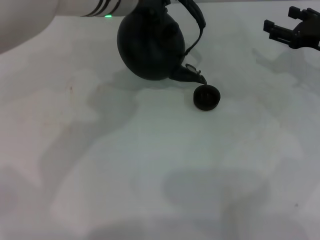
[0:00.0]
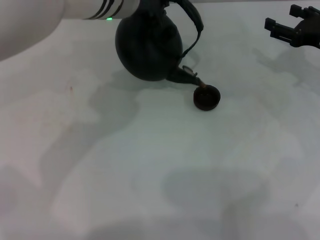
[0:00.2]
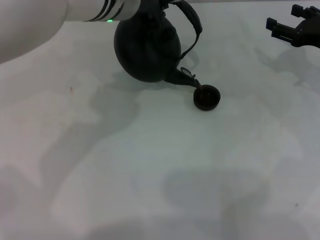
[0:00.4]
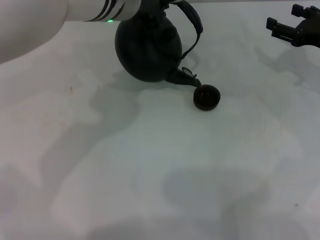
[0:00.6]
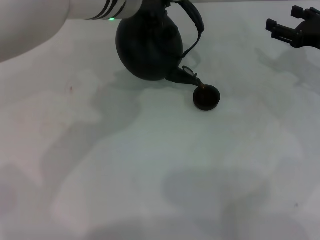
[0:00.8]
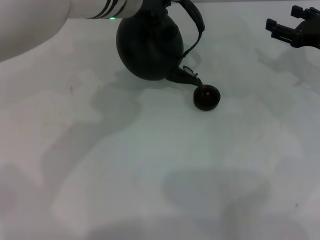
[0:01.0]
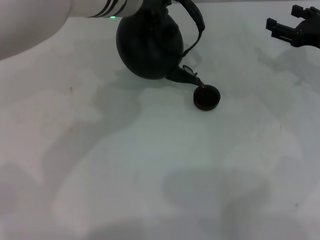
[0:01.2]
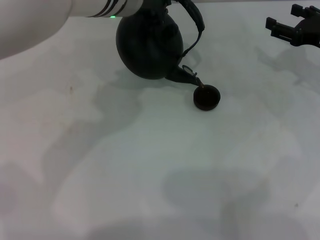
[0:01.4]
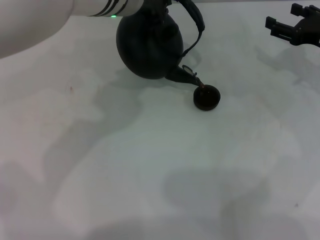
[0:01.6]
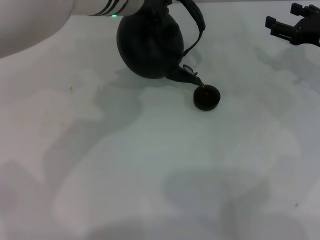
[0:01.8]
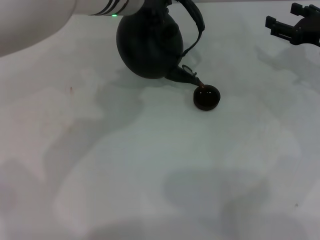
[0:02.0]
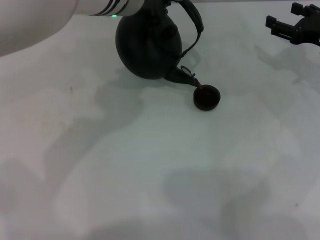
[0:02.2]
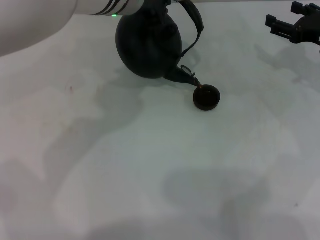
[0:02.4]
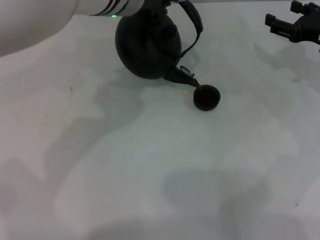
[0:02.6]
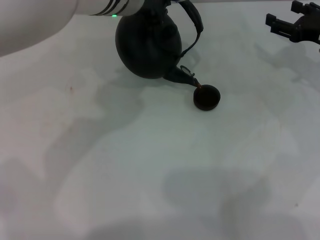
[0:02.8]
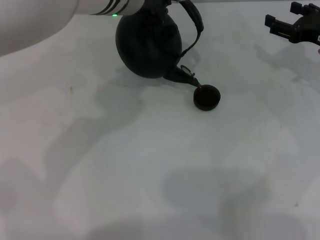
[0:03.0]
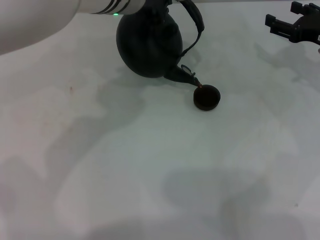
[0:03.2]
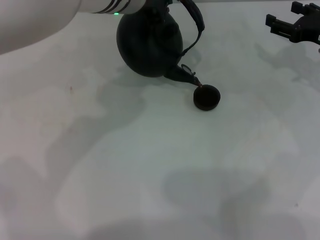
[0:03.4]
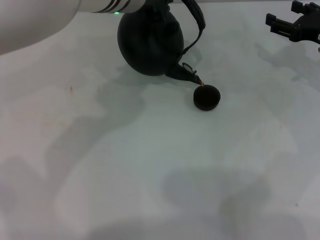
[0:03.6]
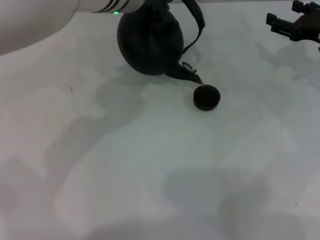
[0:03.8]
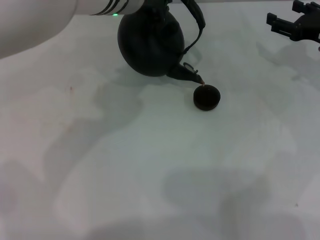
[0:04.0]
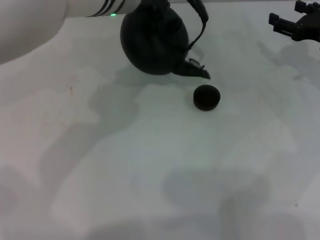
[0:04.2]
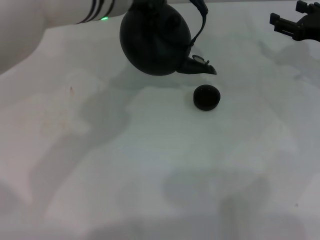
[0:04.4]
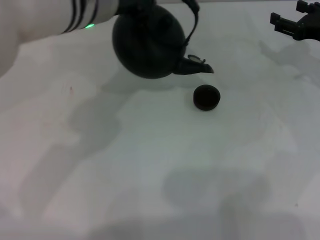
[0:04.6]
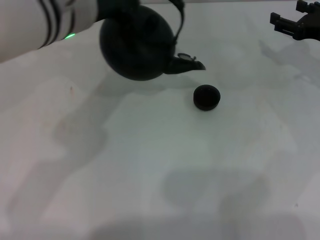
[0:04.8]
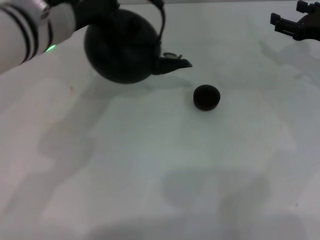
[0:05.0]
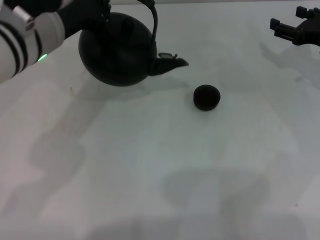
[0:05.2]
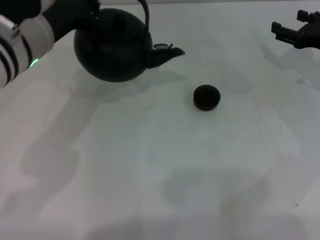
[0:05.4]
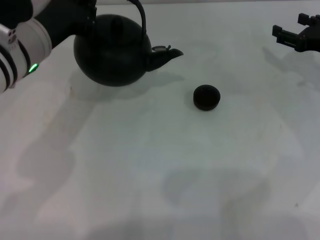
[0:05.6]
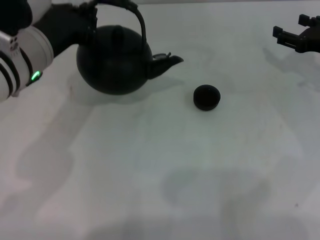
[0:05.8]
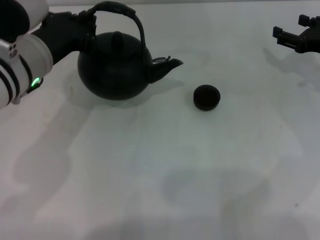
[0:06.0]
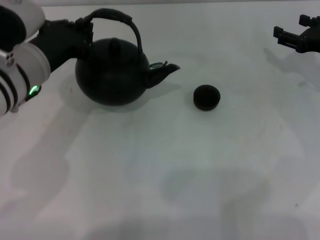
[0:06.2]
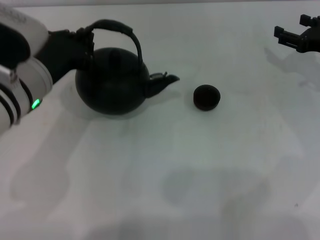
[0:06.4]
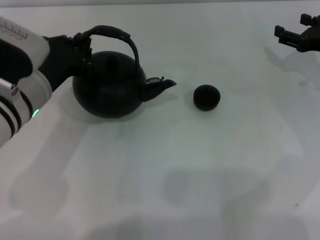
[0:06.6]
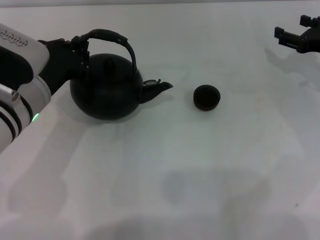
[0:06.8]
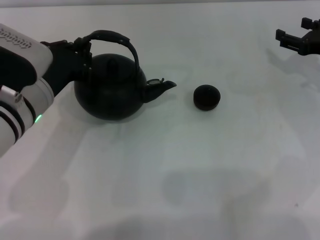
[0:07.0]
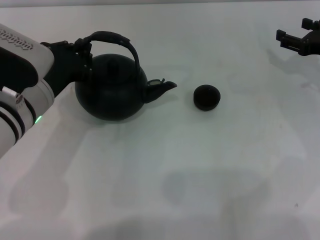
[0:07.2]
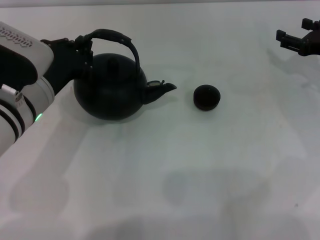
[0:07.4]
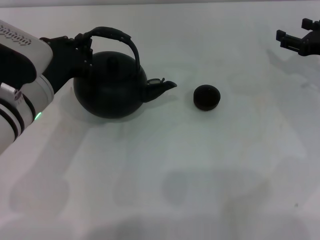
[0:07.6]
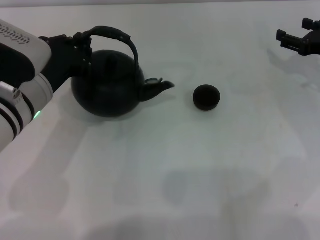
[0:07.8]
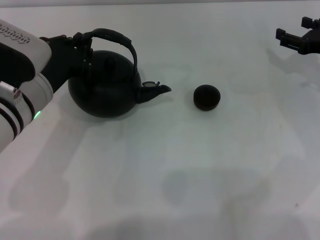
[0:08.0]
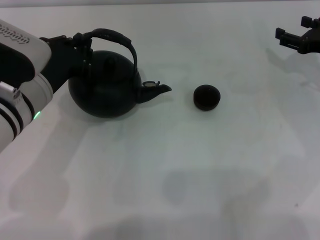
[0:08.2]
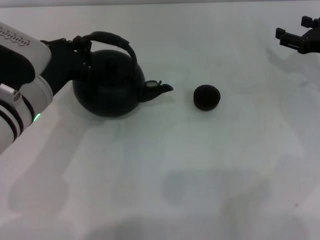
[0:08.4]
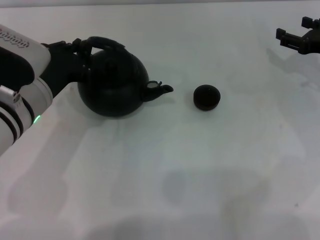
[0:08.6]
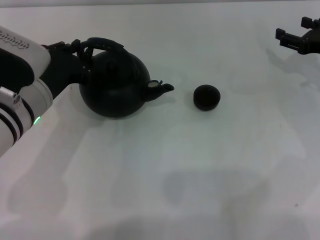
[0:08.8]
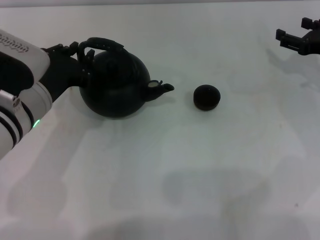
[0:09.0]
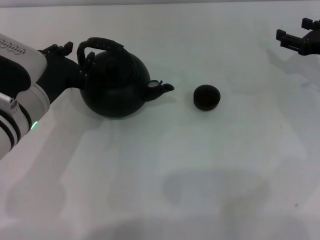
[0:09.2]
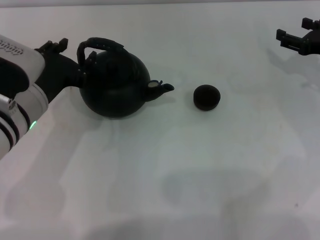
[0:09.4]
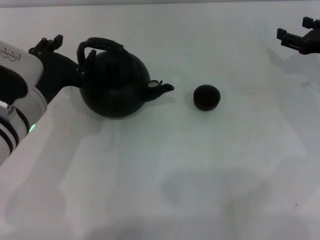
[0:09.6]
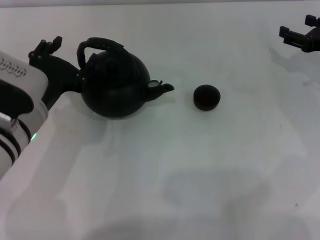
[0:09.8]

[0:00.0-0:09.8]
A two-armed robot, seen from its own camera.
Task of the whole recording: Grasp the handle of the teapot with one hand and pour tea into the teacup.
Step, 0:00.0 to 0:04.4: Pour tea into the teacup with the left gripper.
0:00.0 to 0:01.4: Both grippers stay about where they are.
0:01.4 to 0:02.8: The two grippers keep their place.
0:02.8 to 0:04.2: There are only small adjustments of the grippers.
0:04.2 to 0:05.6: The left gripper shifts some 10 cm to the left and backward.
0:05.6 to 0:07.0: The left gripper is displaced downward by about 5 cm.
0:07.0 to 0:08.4: Both grippers stay about where they are.
0:08.4 to 0:09.8: The left gripper opens its fingers.

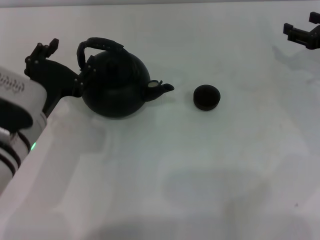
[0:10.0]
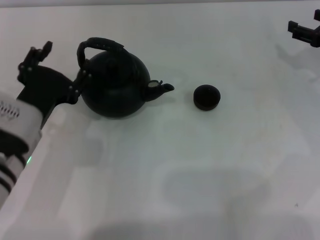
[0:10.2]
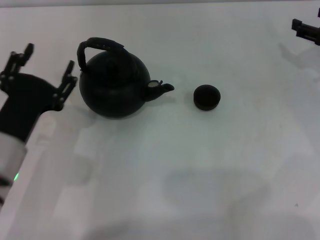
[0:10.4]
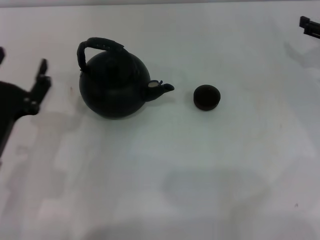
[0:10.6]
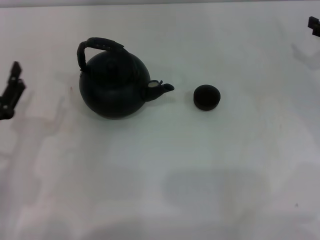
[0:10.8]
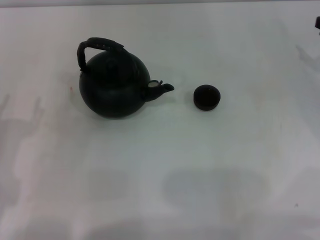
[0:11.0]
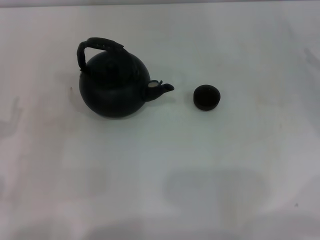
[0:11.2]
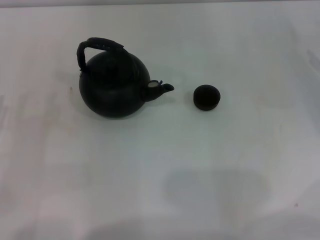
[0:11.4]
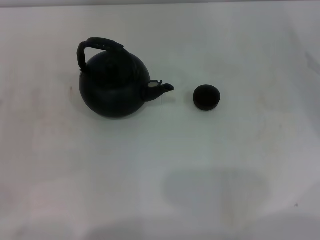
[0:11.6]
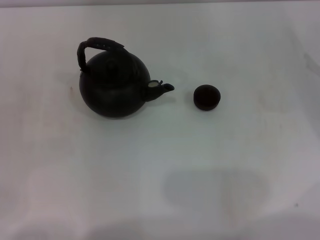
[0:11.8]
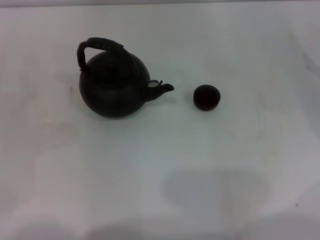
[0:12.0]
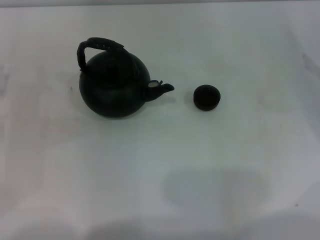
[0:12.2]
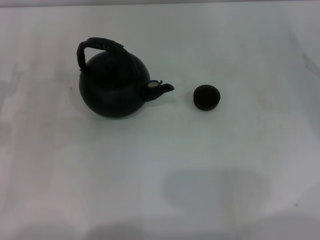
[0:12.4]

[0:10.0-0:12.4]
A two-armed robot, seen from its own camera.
Task of the whole recording: Grasp the handle of the teapot with one hand and pour tea into the teacup.
0:10.0 to 0:11.2: The left gripper goes some 15 cm to the left and backward. Meanwhile the right gripper shifts by roughly 5 cm.

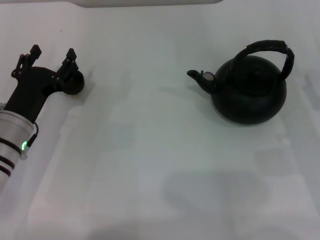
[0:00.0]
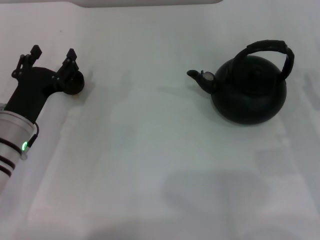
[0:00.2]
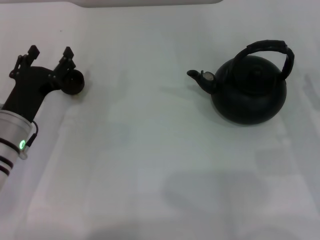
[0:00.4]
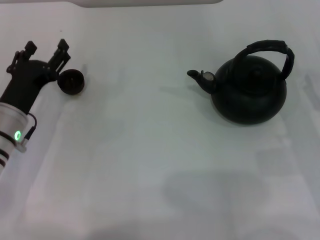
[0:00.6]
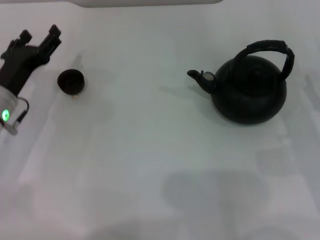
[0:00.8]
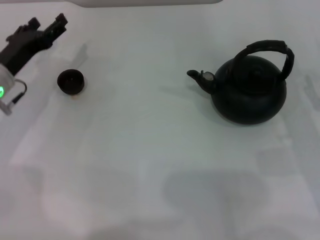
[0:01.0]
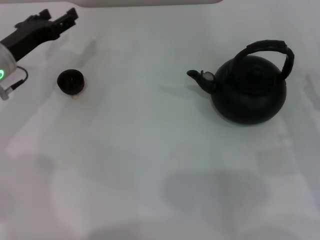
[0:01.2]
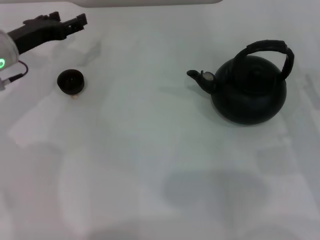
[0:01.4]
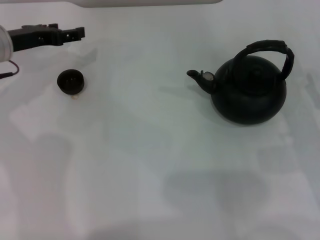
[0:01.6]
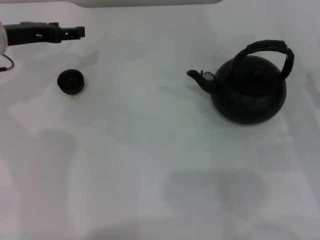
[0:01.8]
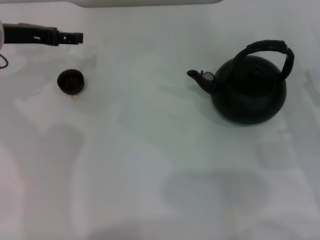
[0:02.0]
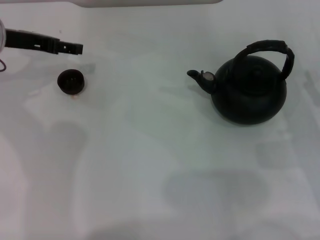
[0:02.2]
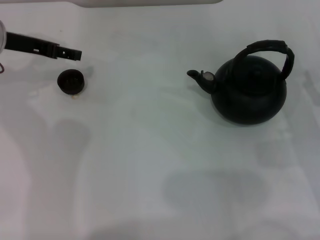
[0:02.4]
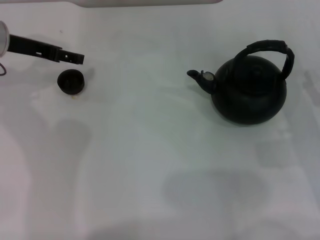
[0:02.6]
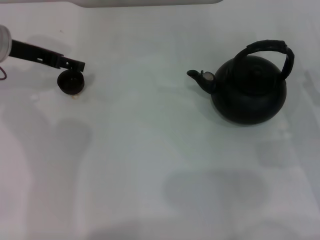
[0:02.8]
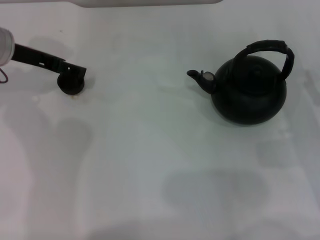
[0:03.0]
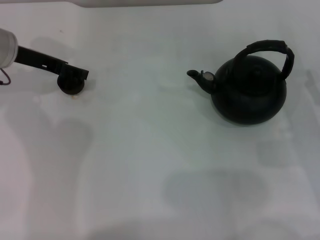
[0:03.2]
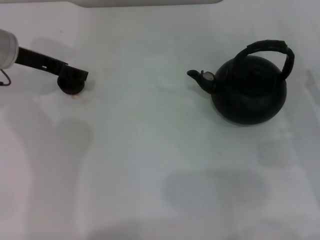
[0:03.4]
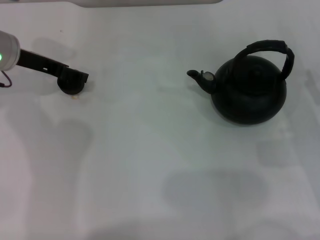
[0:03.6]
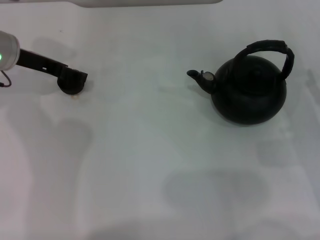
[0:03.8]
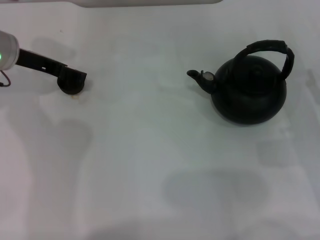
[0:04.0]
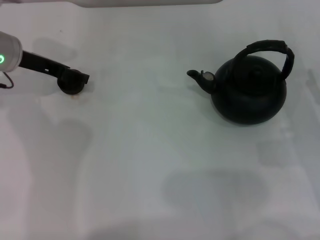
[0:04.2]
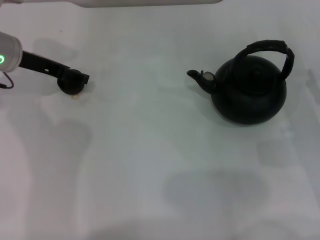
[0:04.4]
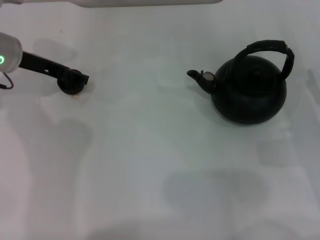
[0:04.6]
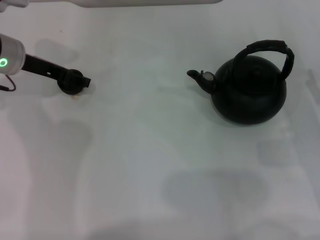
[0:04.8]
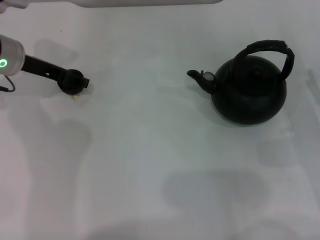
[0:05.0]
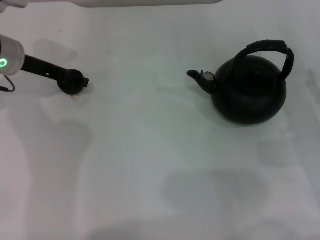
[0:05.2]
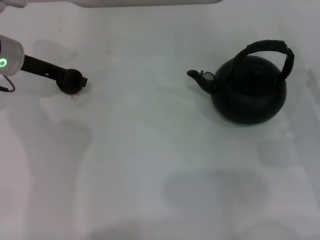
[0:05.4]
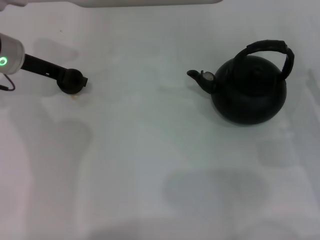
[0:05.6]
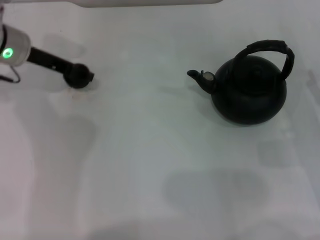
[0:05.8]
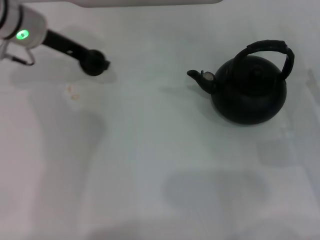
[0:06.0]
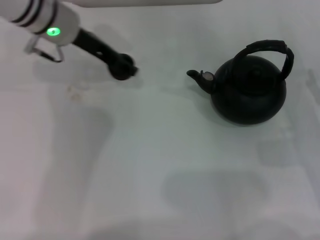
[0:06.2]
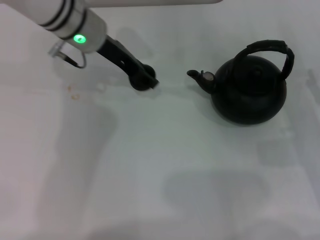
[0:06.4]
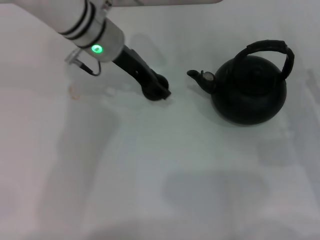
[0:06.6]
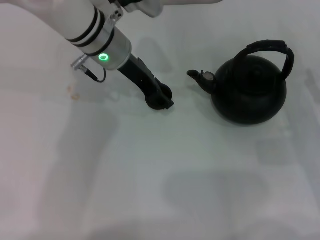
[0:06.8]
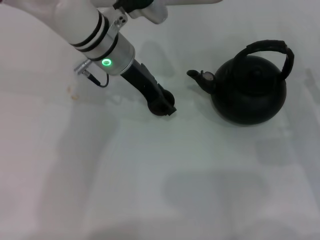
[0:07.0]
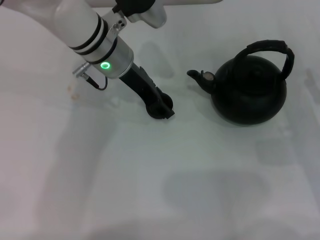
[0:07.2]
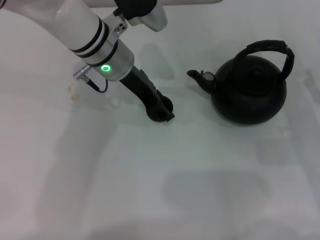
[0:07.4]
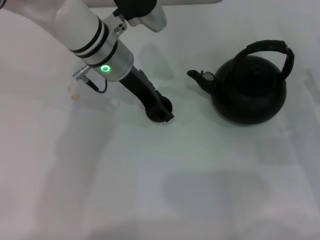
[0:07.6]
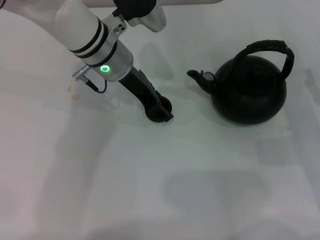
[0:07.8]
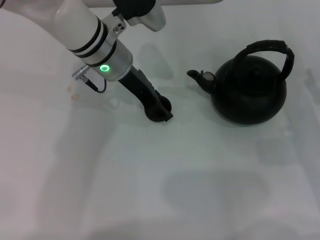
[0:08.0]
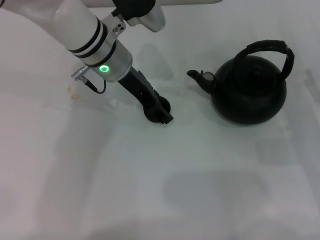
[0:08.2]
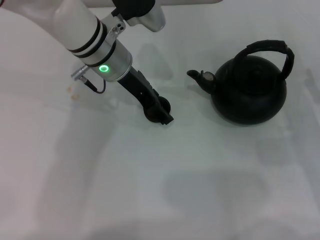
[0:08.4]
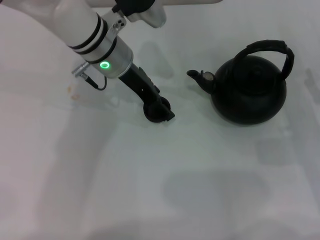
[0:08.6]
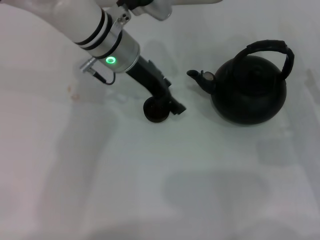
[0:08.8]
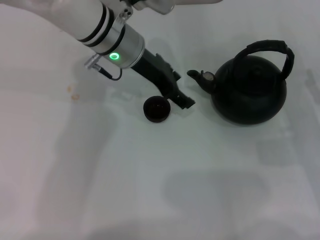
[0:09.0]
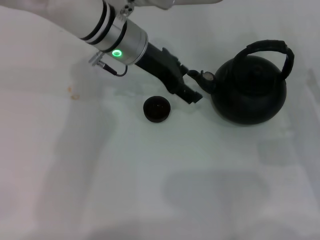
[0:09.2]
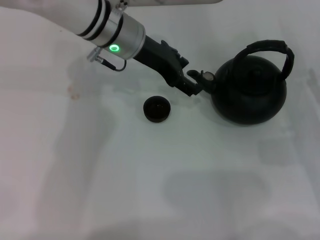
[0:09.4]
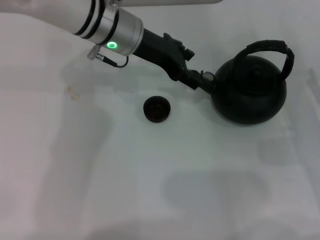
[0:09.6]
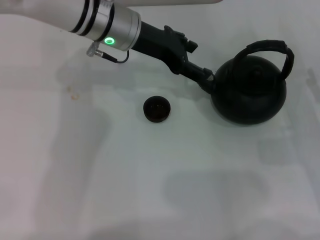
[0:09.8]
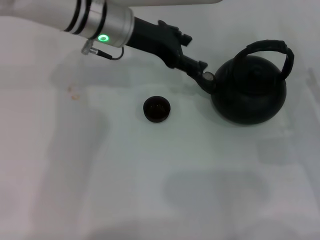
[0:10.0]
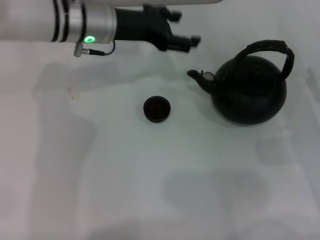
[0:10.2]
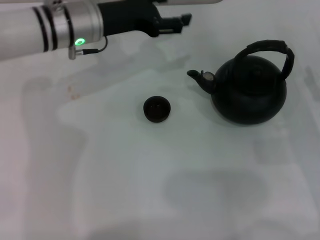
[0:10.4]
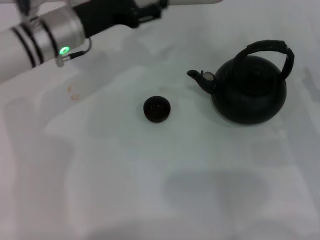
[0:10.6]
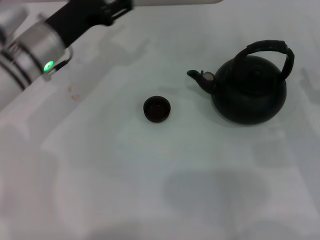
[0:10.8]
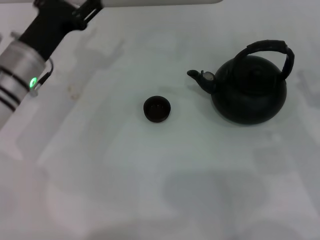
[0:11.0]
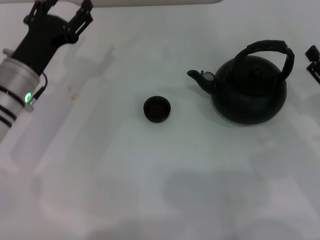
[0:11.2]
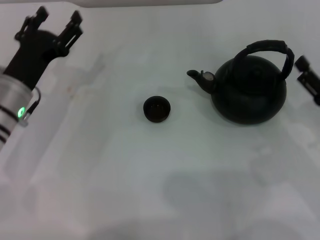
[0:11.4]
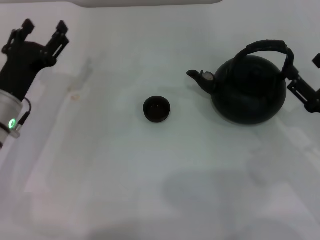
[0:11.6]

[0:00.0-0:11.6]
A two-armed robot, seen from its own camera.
Task of the whole recording: Grasp the handle of the teapot with one hand and pour tea into the teacup.
Step, 0:00.0 to 0:06.0: Pick up the teacup with the left gripper.
Step, 0:06.4 to 0:09.2: Place the teacup in the center of view with the left gripper.
0:00.0 to 0:01.4: The left gripper moves forward and upward, roughly 15 cm.
0:01.4 to 0:02.8: The left gripper shifts by about 5 cm.
0:02.8 to 0:04.4: The grippers make only small movements.
0:04.4 to 0:05.8: The left gripper closes.
0:05.8 to 0:07.2: The left gripper heads to the right, covering about 15 cm.
0:07.2 to 0:08.8: The left gripper opens its fingers.
0:10.2 to 0:11.6: The left gripper is displaced backward, to the left and downward by approximately 20 cm.
